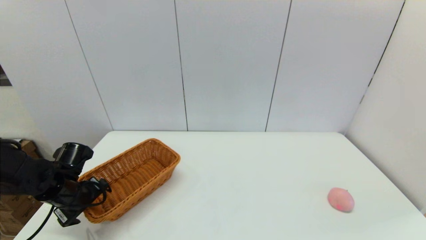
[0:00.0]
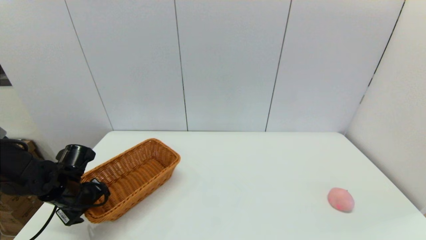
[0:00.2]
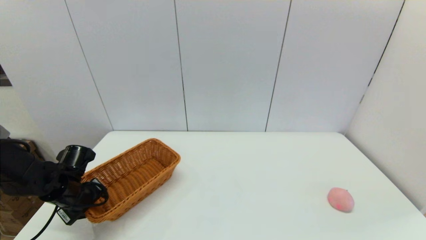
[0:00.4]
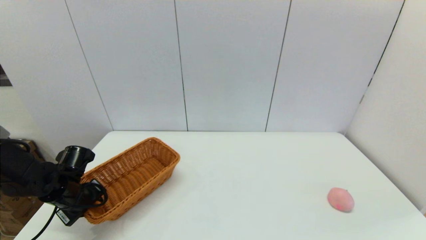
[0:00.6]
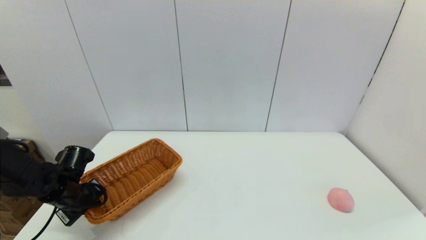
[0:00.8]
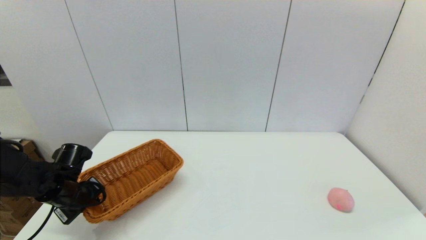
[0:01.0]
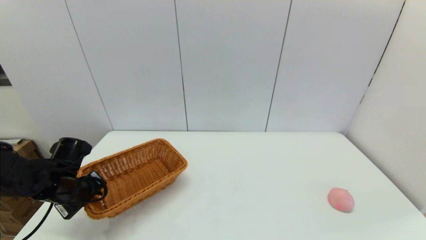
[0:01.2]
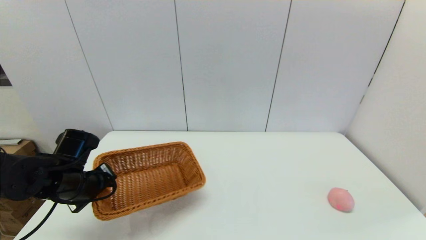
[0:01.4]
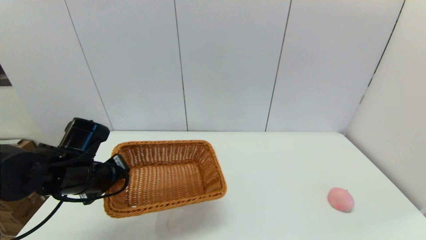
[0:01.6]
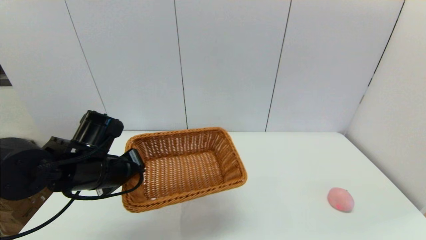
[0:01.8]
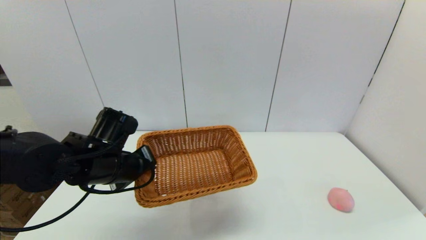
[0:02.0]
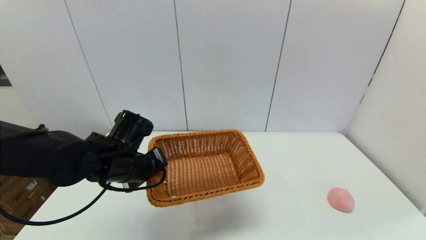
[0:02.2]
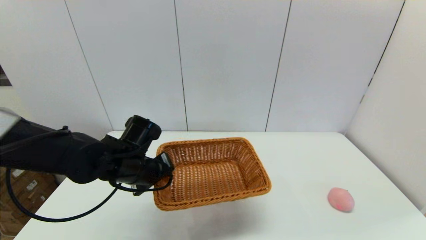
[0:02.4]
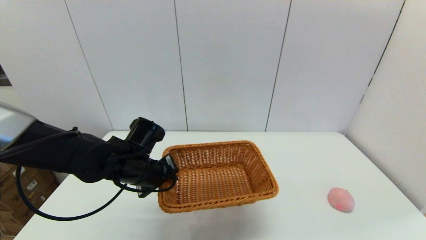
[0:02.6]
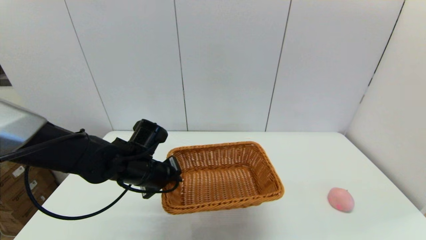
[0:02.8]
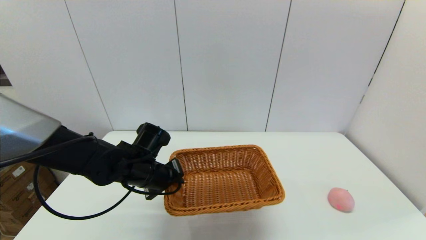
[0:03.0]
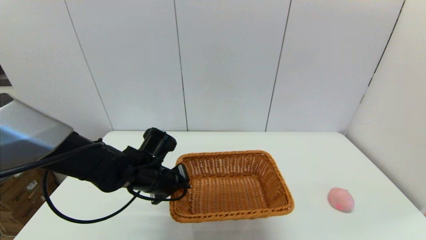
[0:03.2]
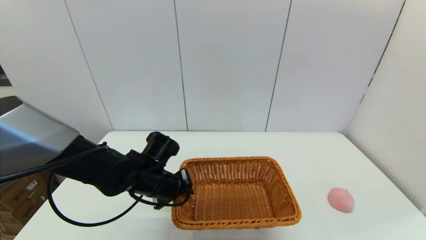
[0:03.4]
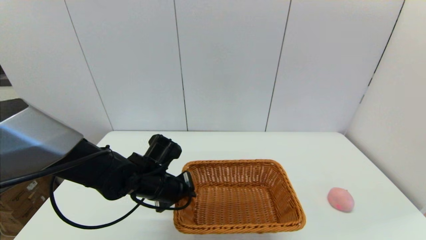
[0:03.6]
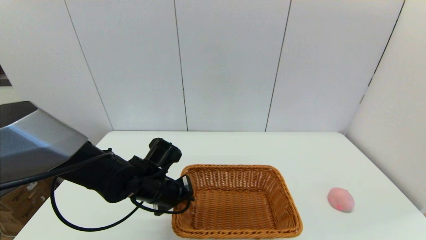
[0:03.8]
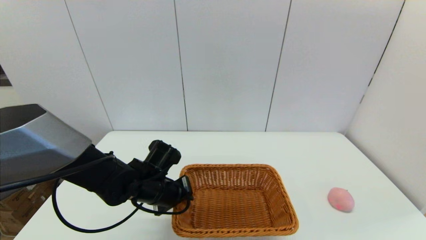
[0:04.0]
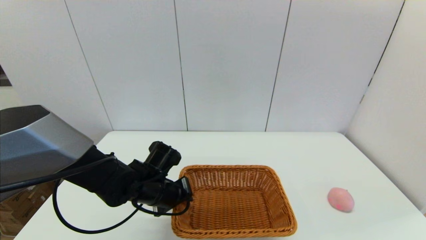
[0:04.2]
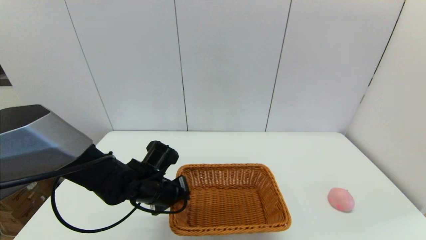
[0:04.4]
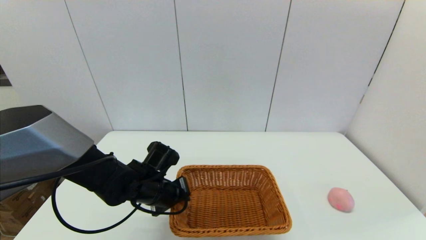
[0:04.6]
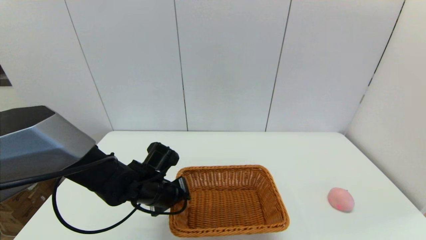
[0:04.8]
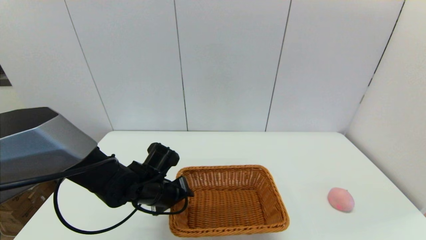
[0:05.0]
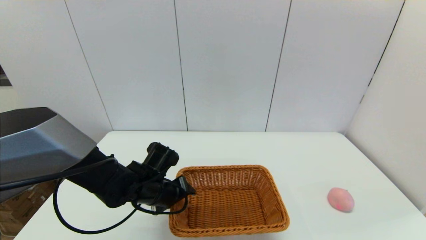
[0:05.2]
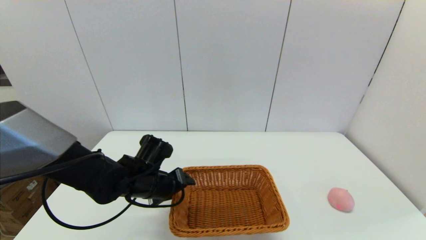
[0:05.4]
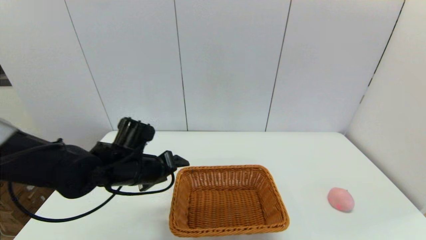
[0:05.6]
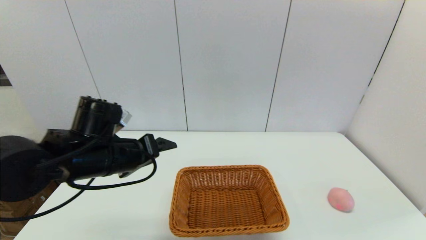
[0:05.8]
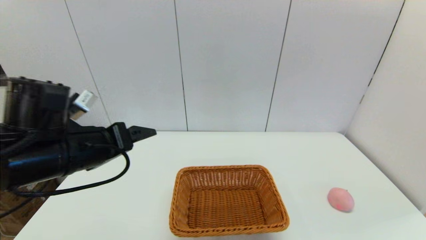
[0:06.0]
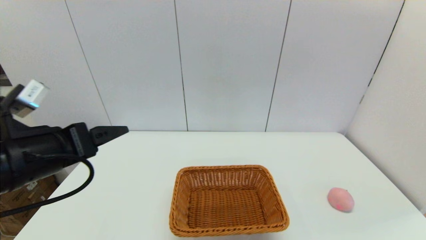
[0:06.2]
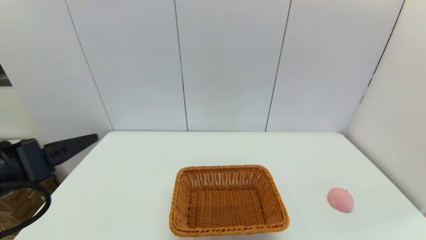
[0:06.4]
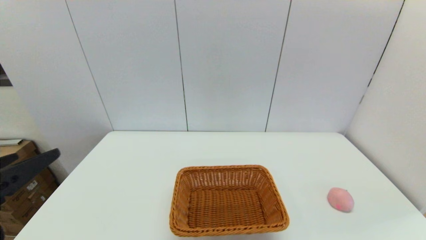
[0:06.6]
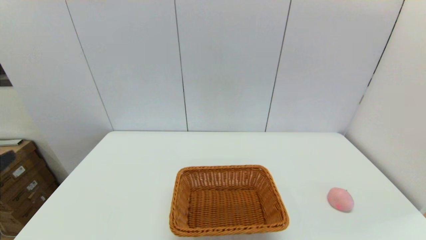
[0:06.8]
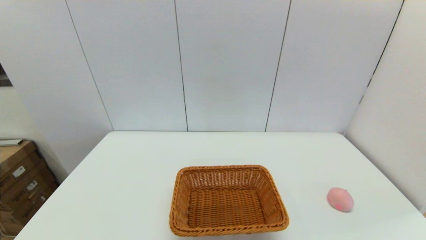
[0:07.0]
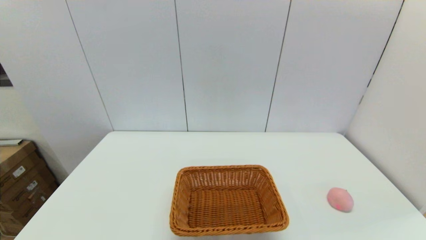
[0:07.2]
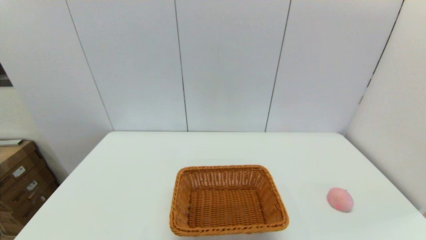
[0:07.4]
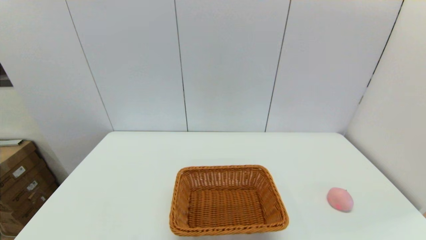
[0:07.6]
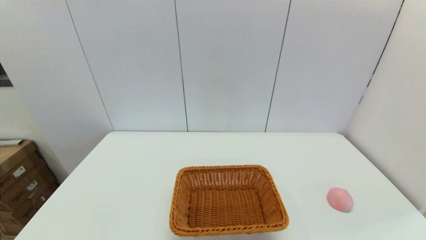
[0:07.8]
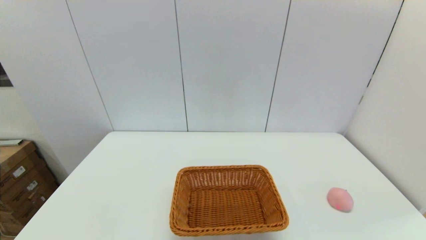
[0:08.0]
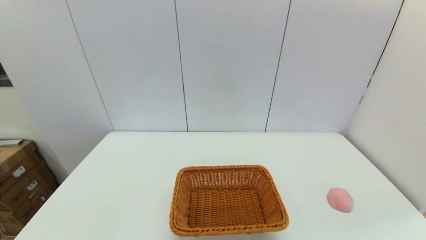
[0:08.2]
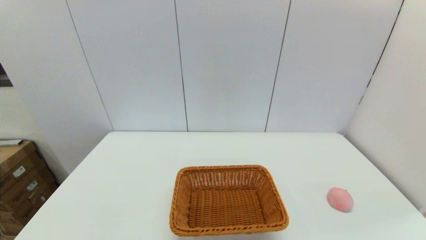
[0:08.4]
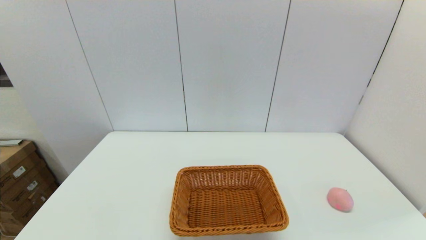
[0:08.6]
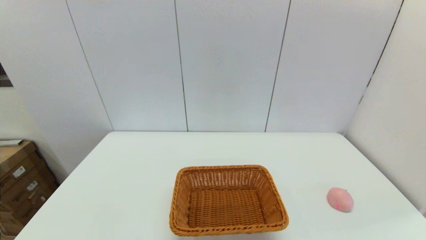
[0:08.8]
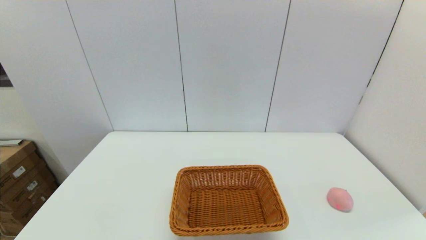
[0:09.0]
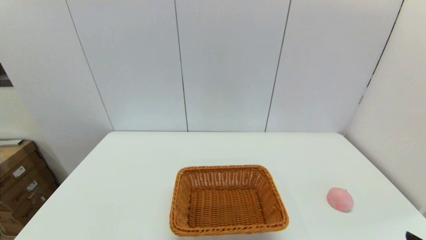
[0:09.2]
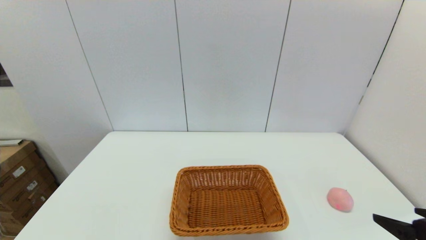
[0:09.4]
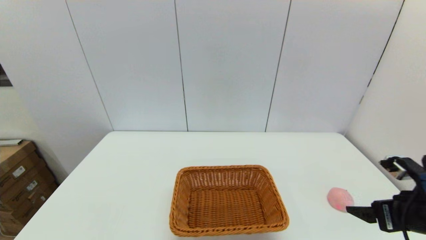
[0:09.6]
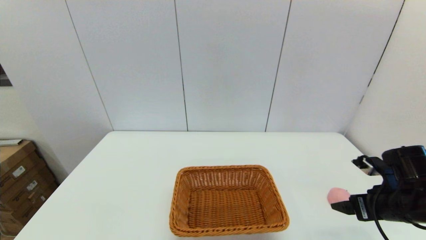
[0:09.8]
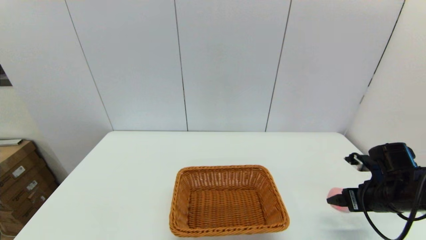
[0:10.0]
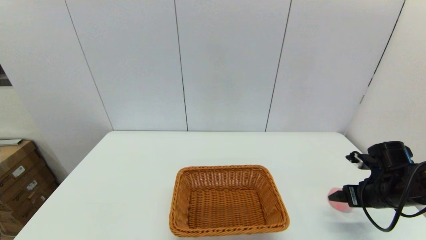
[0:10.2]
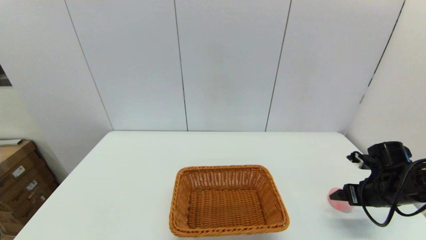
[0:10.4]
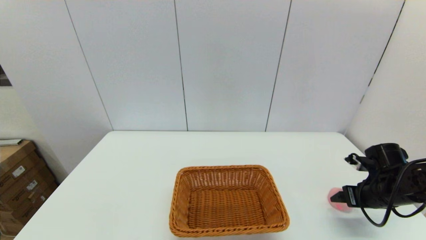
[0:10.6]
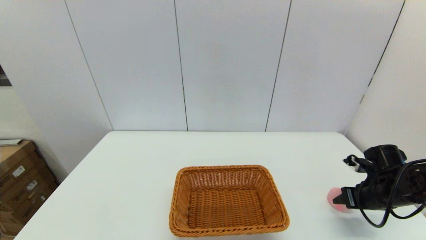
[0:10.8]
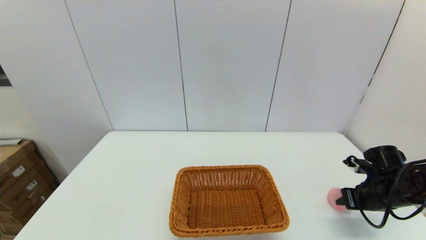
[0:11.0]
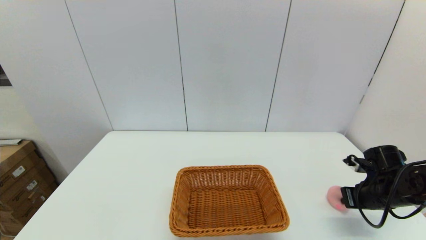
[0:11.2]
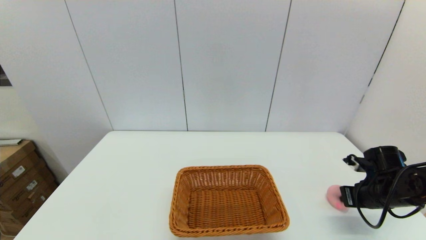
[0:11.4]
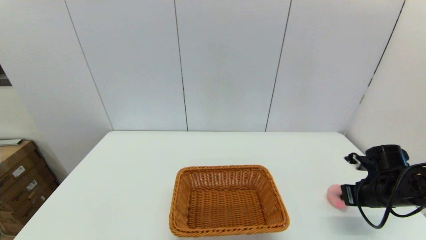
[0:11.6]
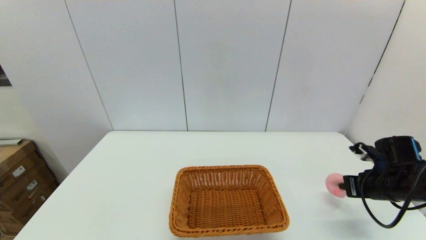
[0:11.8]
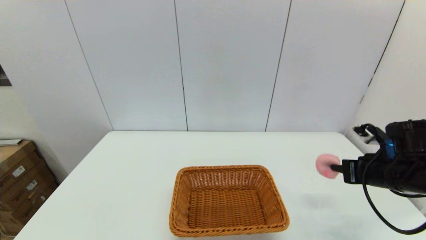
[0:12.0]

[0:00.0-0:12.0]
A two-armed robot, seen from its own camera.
Step, 0:01.0 to 0:05.0: Place the light basket on the middle of the table with the left gripper.
Step, 0:05.4 to 0:11.0: Grasp the peach with the right gripper.
0:00.0 to 0:01.6: The left gripper shifts some 10 cm to the right and upward, and closes its fingers.
0:01.6 to 0:03.0: The left gripper heads to the right, covering approximately 10 cm.
0:03.0 to 0:04.4: There are only small adjustments of the grippers.
0:04.4 to 0:06.0: The left gripper shifts some 20 cm upward, to the left and backward, and opens its fingers.
0:06.0 to 0:07.6: The left gripper heads backward, to the left and downward, covering some 25 cm.
0:09.0 to 0:10.4: The right gripper goes approximately 30 cm forward.
0:10.4 to 0:12.0: The right gripper moves upward, some 10 cm, and closes.

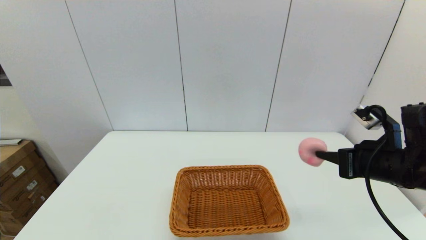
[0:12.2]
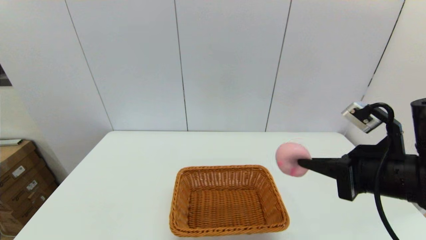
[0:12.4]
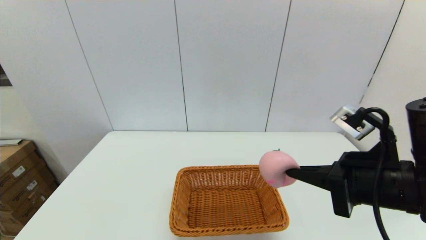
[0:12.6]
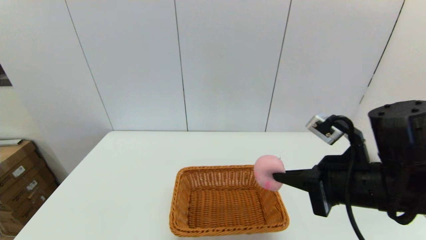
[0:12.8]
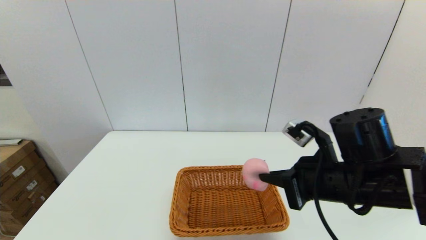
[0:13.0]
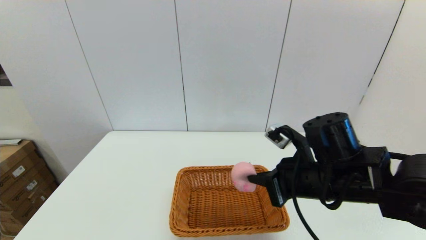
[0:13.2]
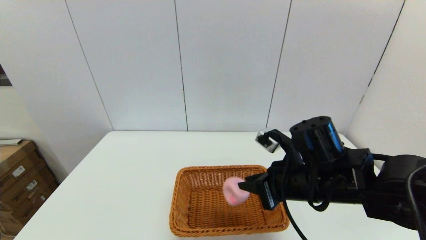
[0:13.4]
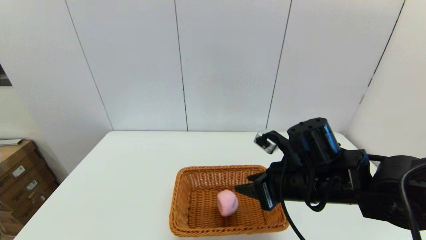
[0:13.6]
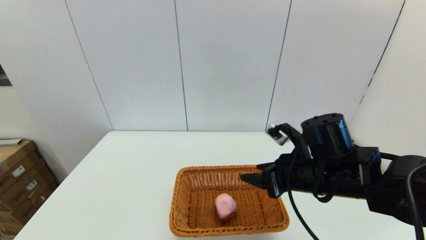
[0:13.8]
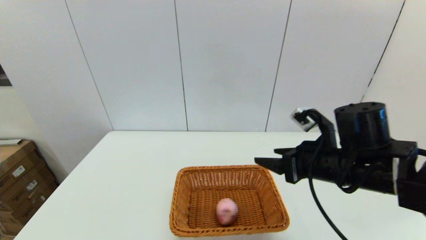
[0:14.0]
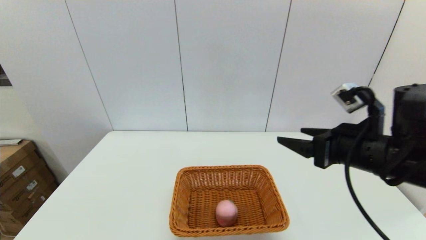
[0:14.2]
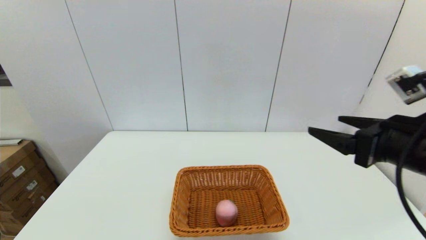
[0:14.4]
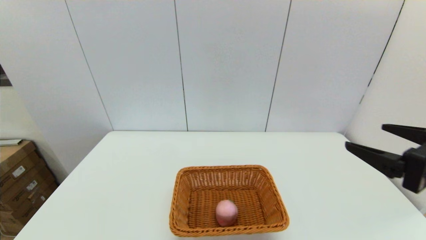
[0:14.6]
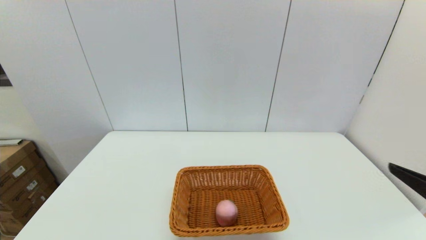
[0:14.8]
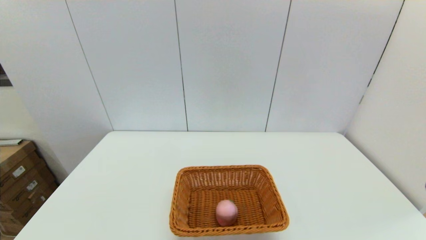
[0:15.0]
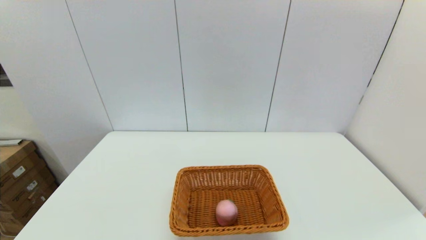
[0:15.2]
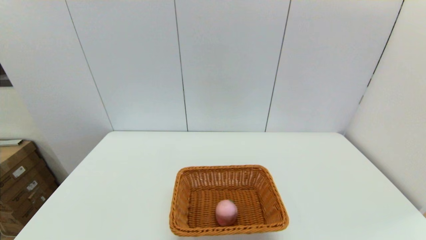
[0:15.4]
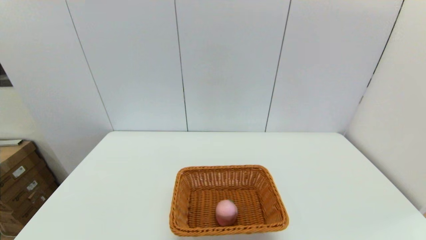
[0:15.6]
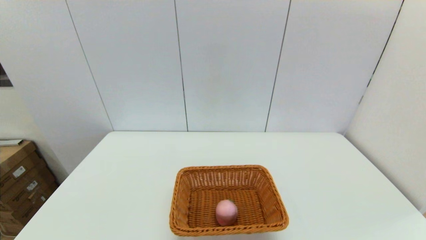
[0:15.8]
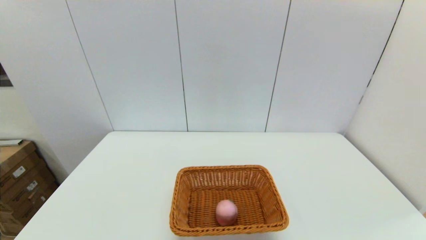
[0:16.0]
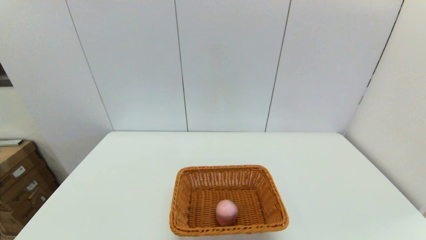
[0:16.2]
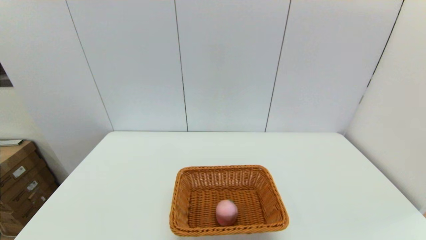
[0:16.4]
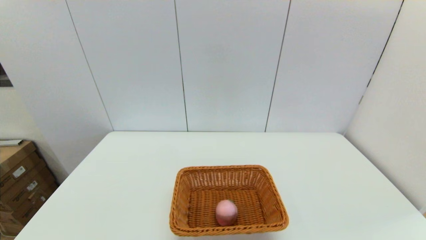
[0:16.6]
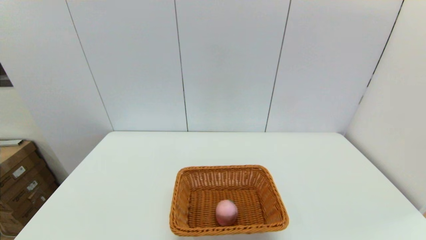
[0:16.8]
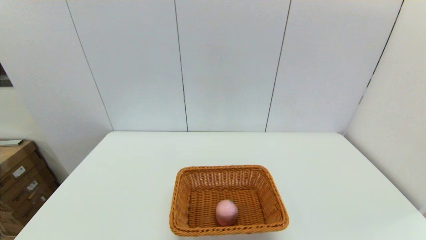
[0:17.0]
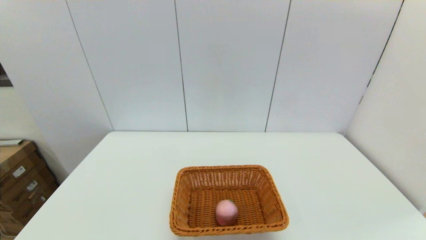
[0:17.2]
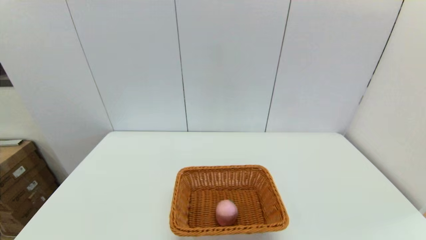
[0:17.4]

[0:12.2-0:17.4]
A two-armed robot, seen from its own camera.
Step, 0:12.2 to 0:13.6: Place the peach into the light basket with the right gripper.
0:12.2 to 0:14.0: The right gripper travels to the left by some 10 cm, and opens up.
0:14.0 to 0:15.6: The right gripper shifts some 30 cm backward and to the right.
